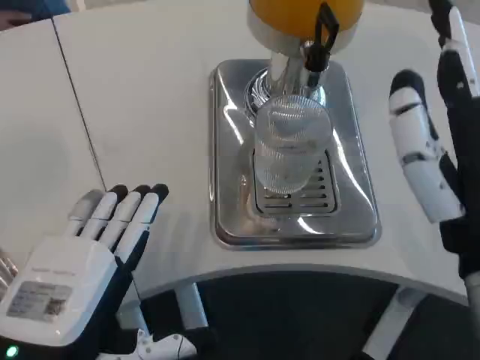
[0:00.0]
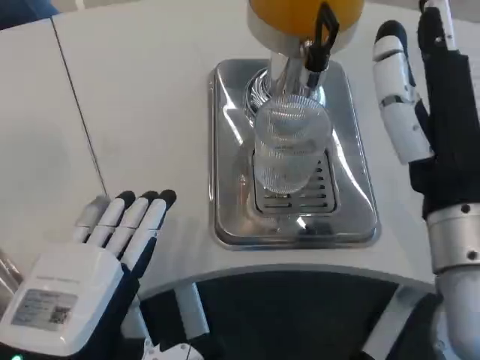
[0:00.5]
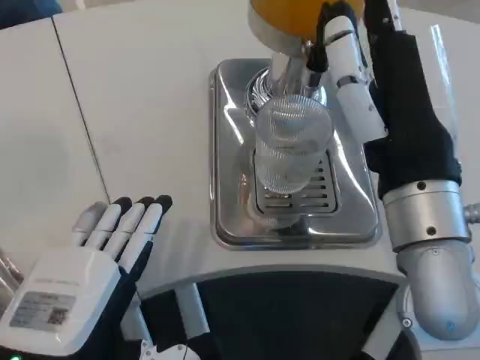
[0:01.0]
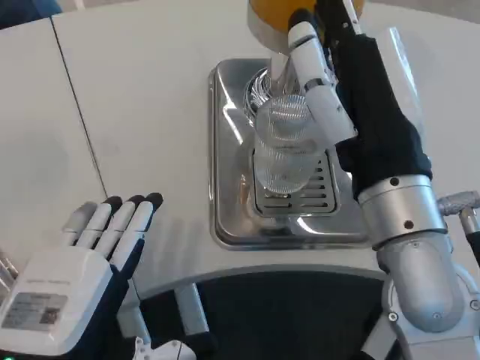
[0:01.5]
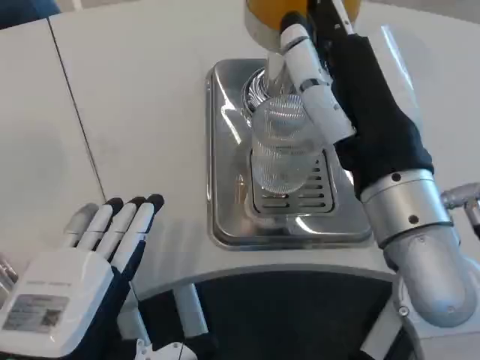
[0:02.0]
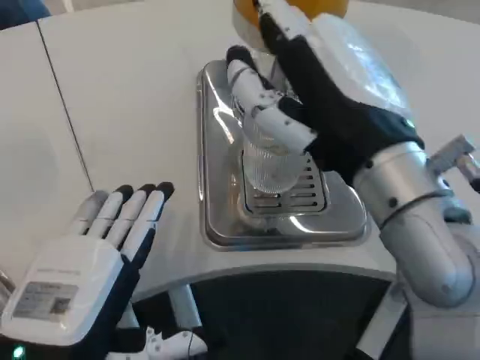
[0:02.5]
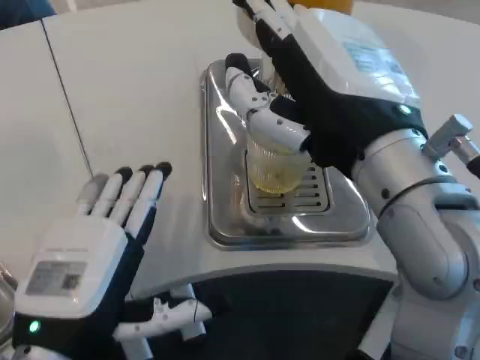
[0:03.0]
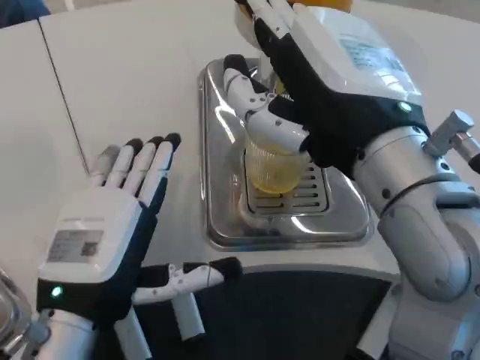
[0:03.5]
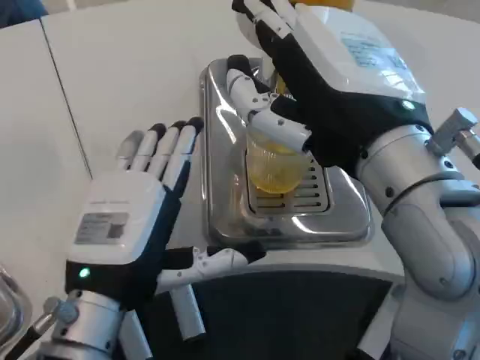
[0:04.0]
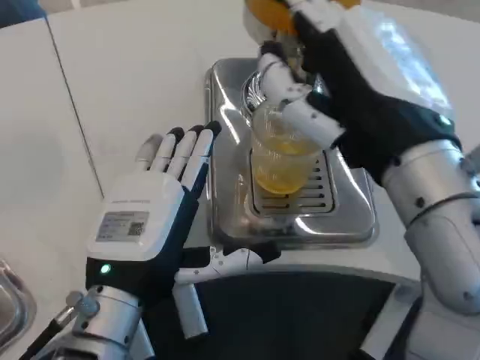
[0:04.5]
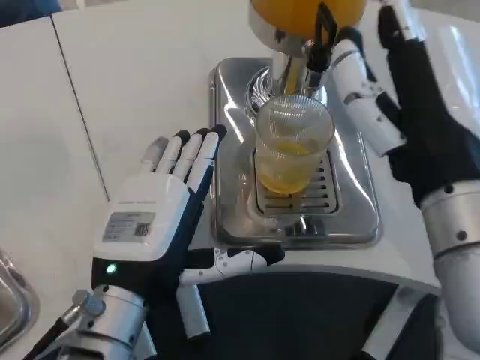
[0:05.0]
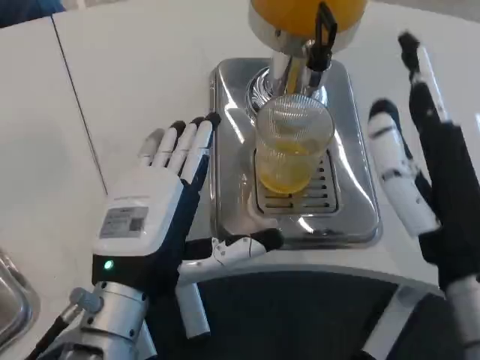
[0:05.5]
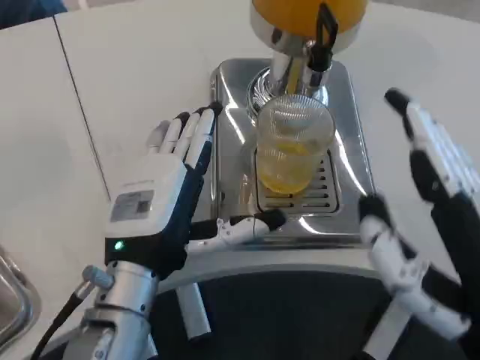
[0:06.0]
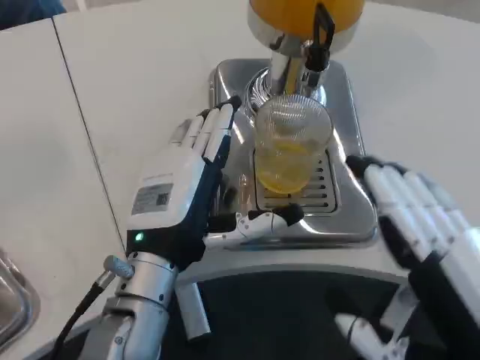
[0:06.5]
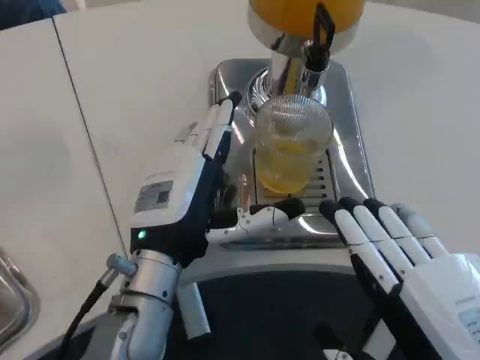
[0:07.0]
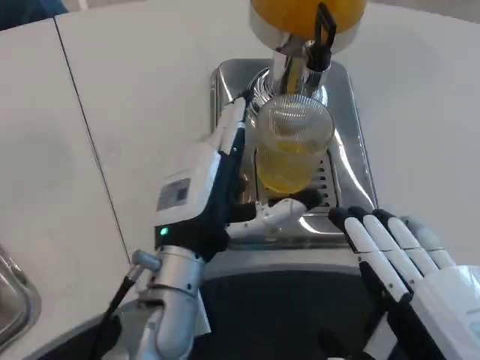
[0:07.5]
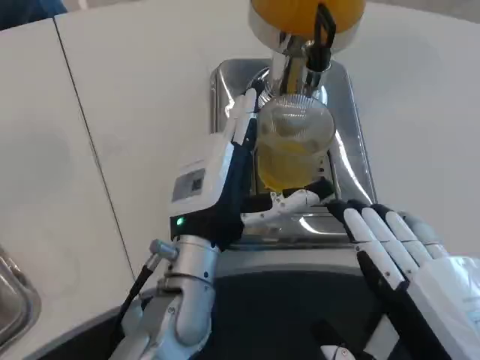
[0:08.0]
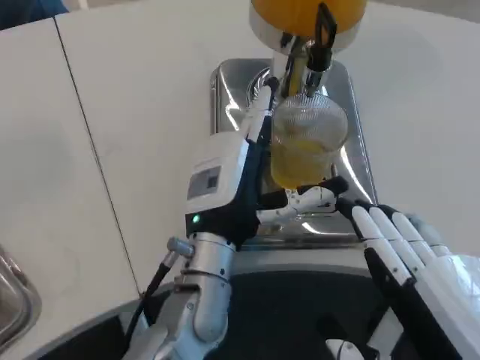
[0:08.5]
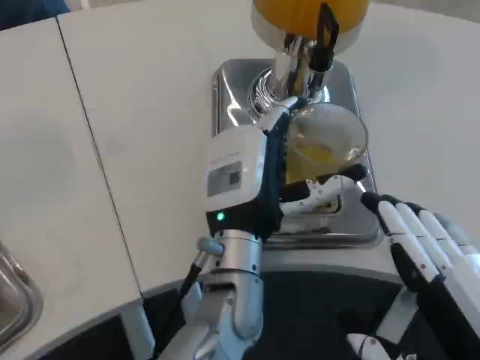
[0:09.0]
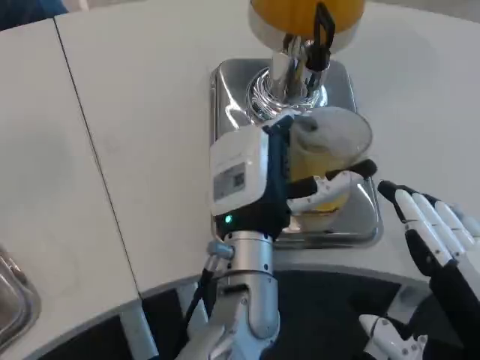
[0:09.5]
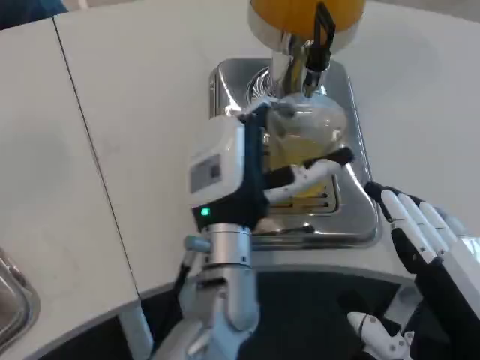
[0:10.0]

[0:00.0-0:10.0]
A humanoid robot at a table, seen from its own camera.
Task of the whole recording: Grasp the cup under the faucet to collect the drink, then remove the cup.
0:00.0 to 0:02.0: The right hand heads forward, covering about 5 cm.
0:02.0 to 0:04.0: The right hand shifts by approximately 5 cm. Meanwhile the left hand goes approximately 10 cm forward.
0:04.0 to 0:06.0: The right hand is displaced downward, backward and to the right by roughly 15 cm.
0:06.0 to 0:08.0: The left hand heads to the right, covering about 5 cm.

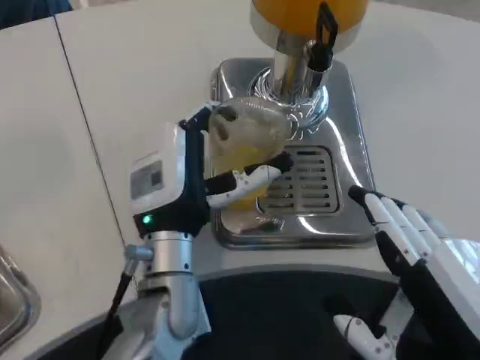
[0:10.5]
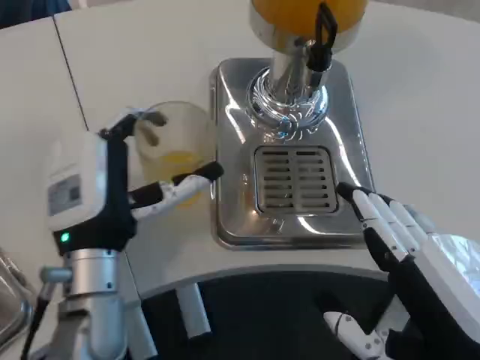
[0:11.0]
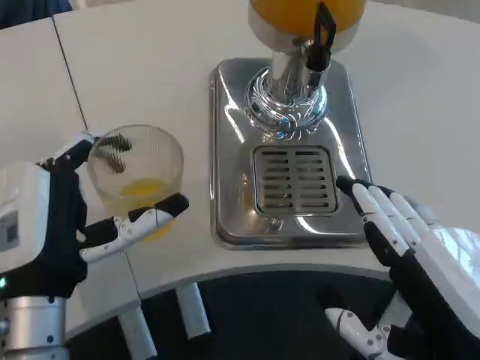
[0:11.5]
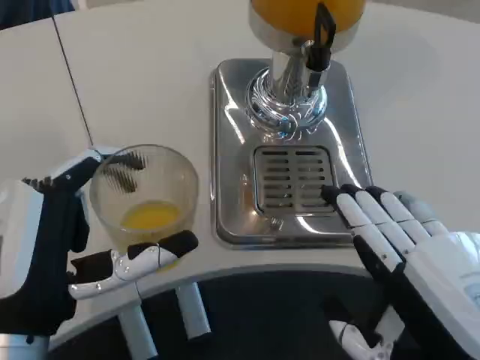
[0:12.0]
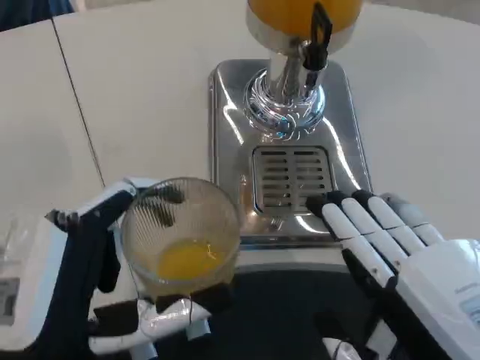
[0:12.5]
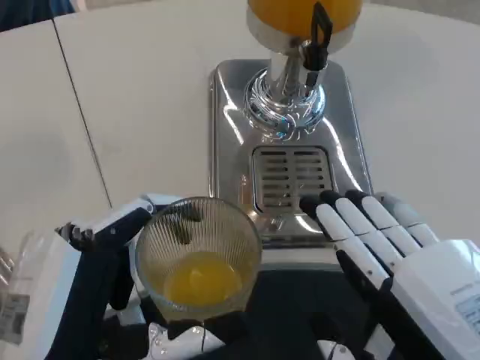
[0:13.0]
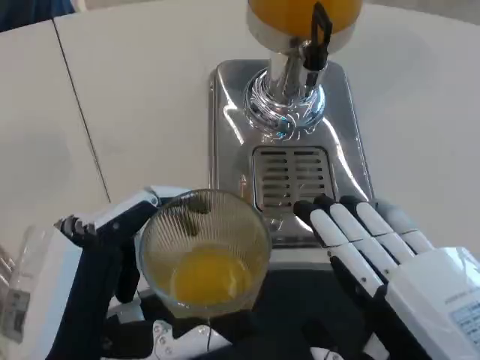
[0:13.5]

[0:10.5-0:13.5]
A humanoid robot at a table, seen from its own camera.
Task of the whole recording: Grasp the cup under the faucet to collect the drink, then remove the cup.
0:10.5 to 0:12.0: The left hand travels backward and to the left by roughly 15 cm.
0:12.0 to 0:13.5: The left hand ends up roughly 5 cm from where it was.

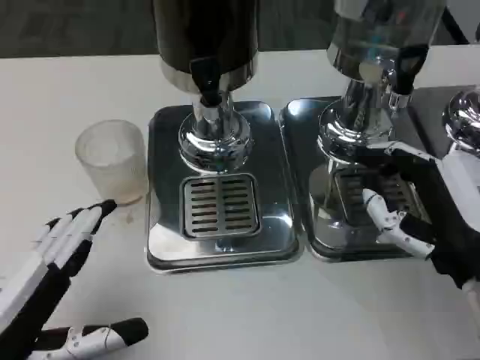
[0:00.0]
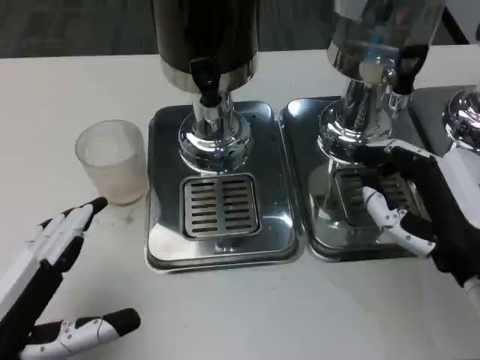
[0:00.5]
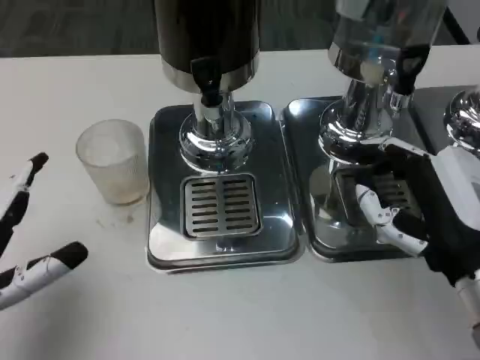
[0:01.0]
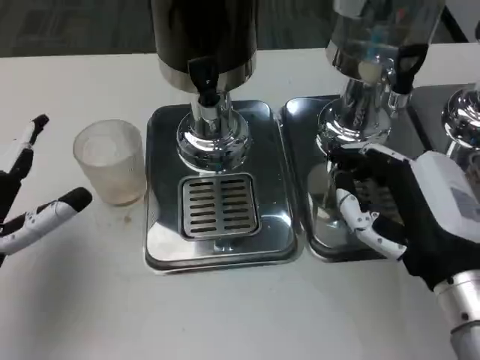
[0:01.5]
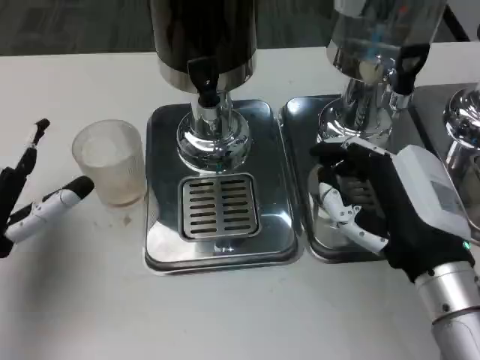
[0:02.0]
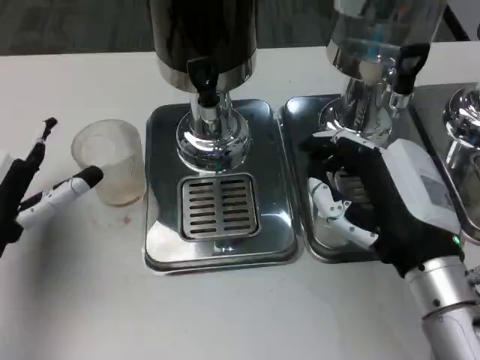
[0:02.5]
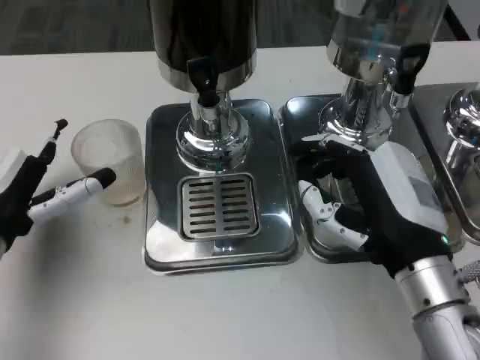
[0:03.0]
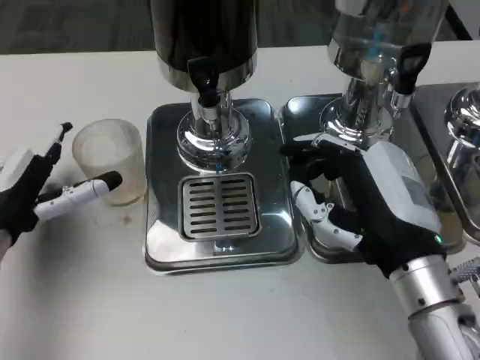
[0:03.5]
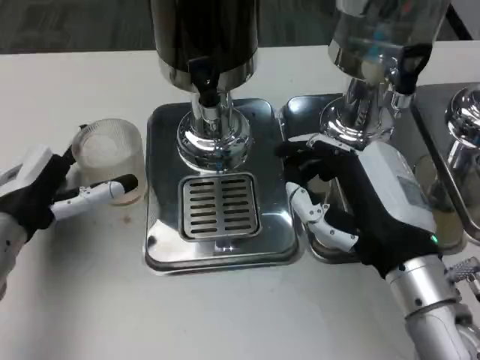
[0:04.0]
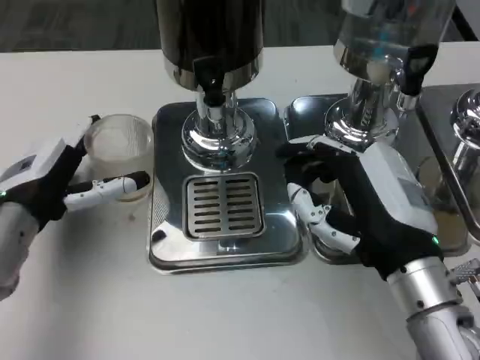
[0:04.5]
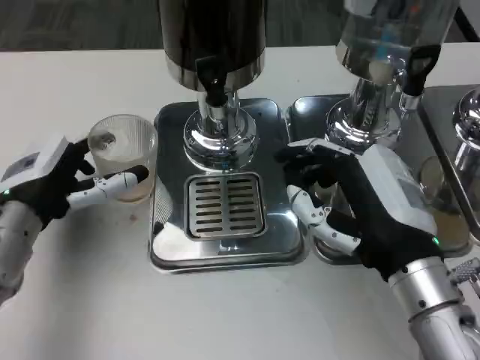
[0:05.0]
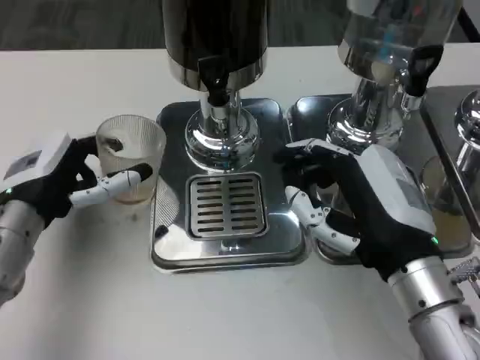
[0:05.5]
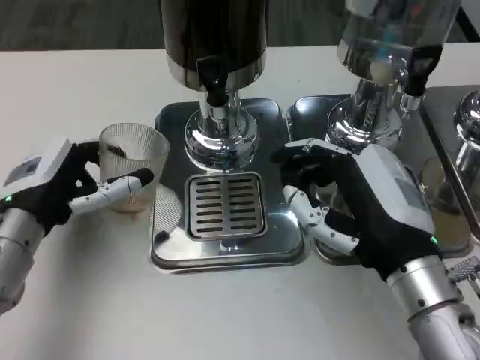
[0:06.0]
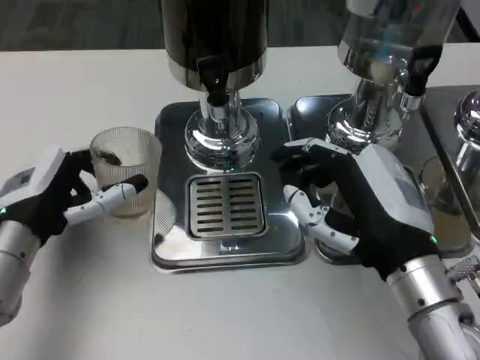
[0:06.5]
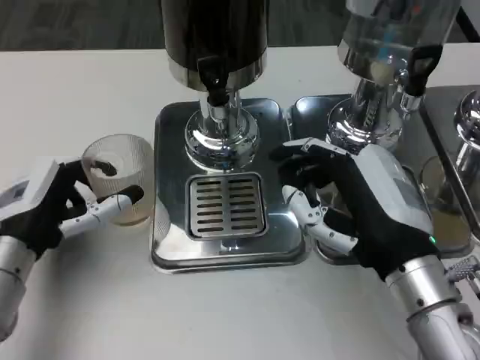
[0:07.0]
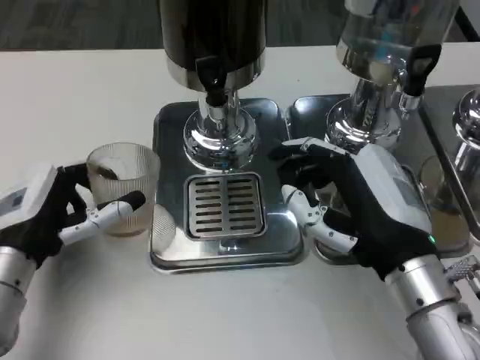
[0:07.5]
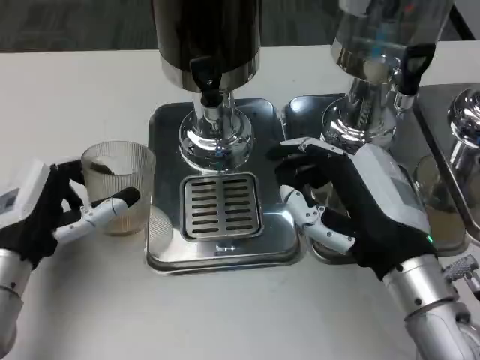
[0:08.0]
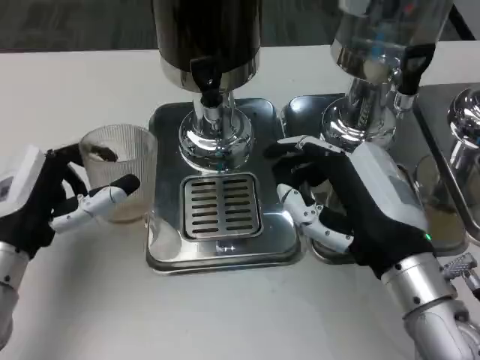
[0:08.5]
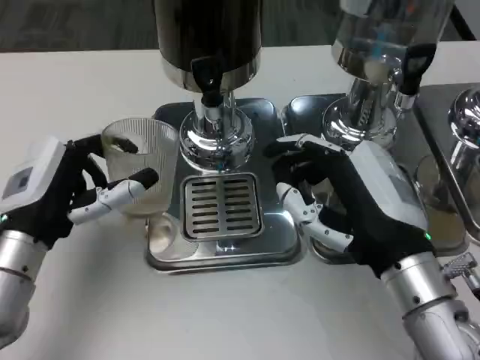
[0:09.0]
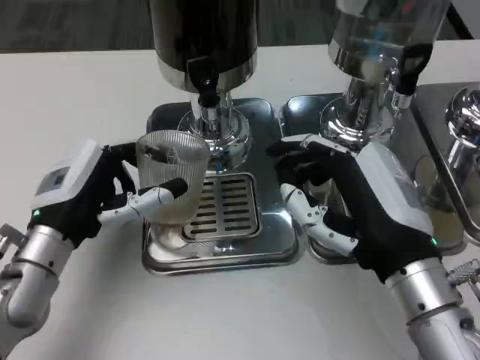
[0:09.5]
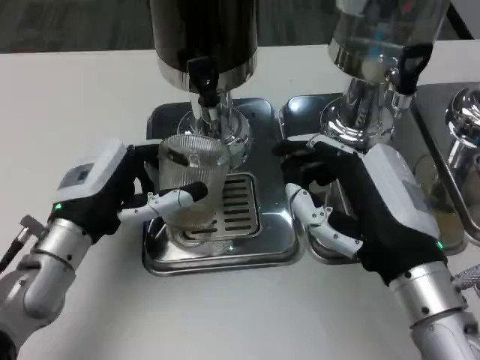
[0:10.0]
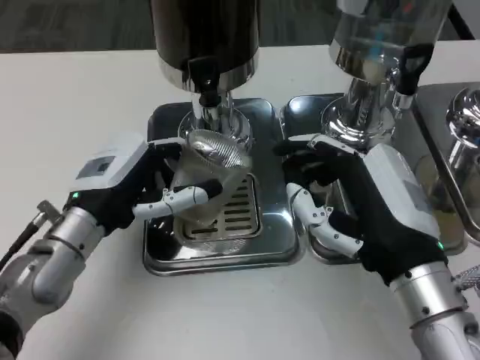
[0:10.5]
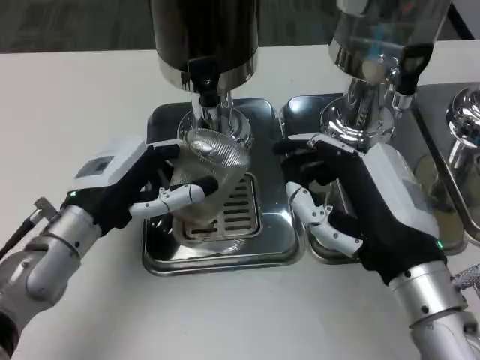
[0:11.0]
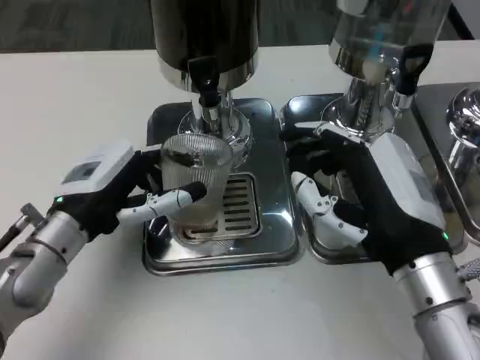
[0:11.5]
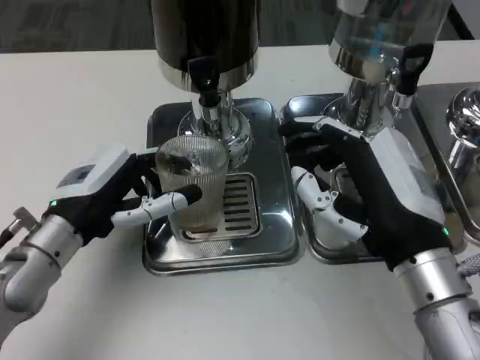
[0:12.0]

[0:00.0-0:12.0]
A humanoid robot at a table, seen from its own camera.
Task of the whole recording: Grasp the cup under the faucet to collect the drink, then remove the cup.
0:00.0 to 0:02.0: The left hand goes some 10 cm forward.
0:02.0 to 0:04.0: The left hand is displaced forward by some 5 cm.
0:08.0 to 0:10.0: The left hand moves roughly 5 cm.
0:10.0 to 0:12.0: The hands move only a little.
